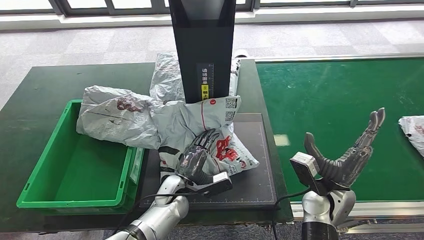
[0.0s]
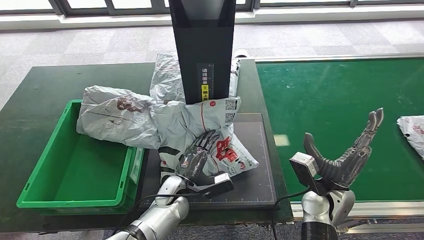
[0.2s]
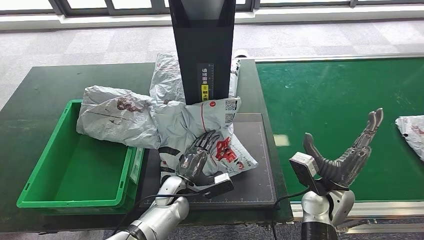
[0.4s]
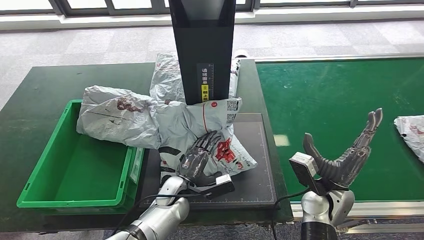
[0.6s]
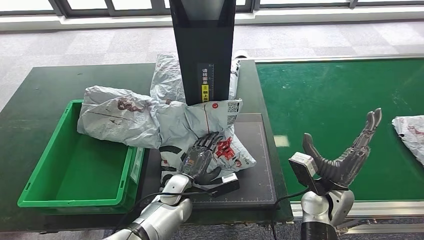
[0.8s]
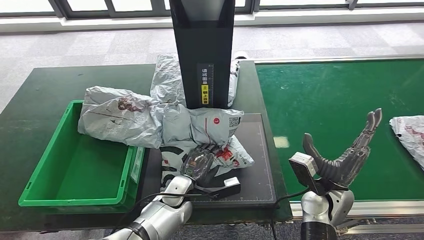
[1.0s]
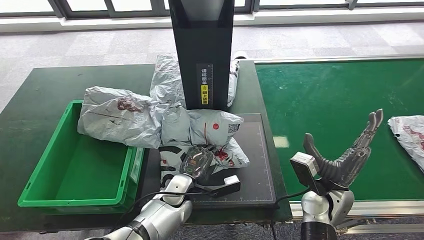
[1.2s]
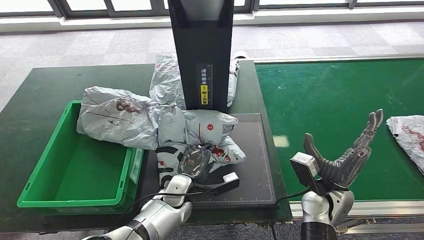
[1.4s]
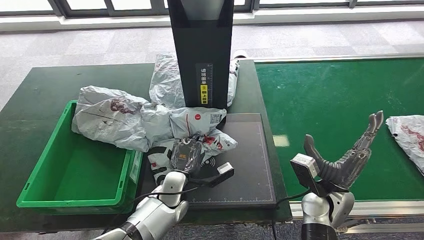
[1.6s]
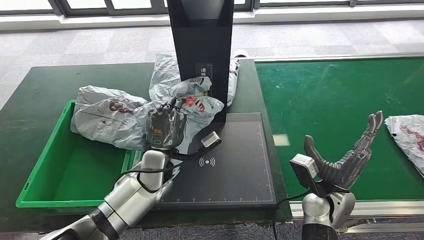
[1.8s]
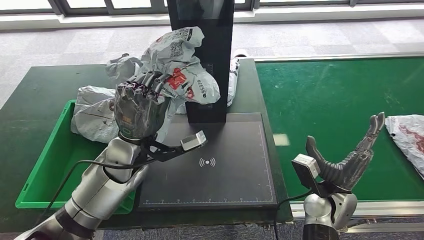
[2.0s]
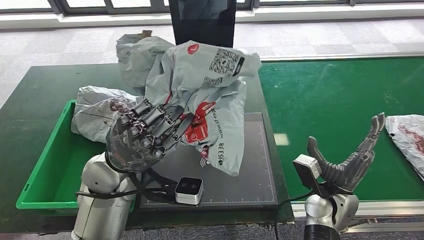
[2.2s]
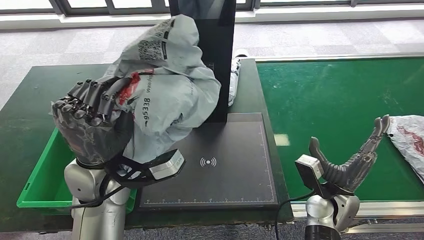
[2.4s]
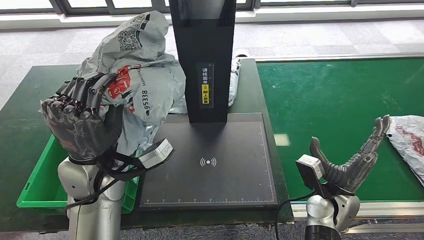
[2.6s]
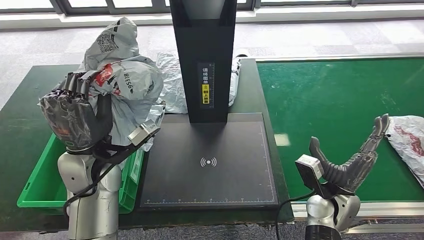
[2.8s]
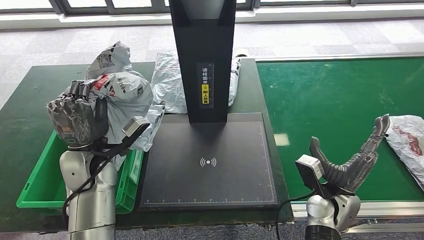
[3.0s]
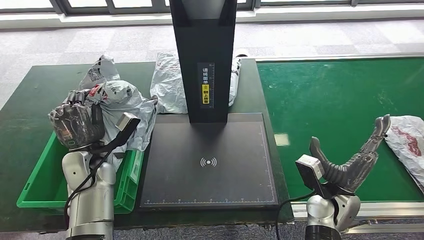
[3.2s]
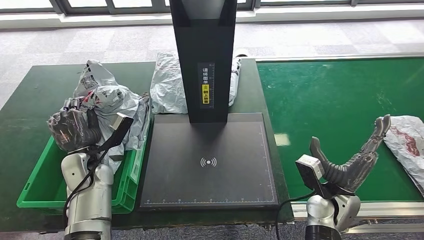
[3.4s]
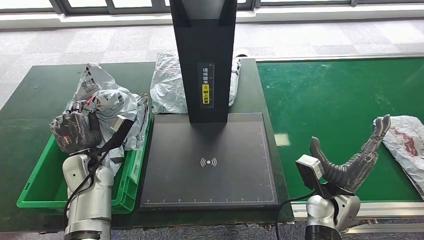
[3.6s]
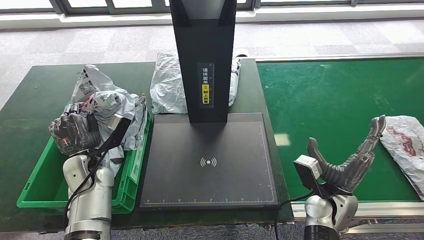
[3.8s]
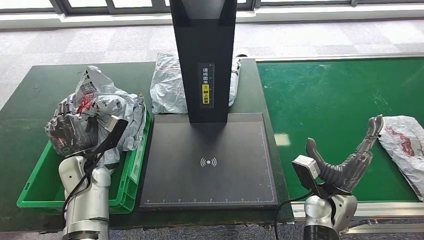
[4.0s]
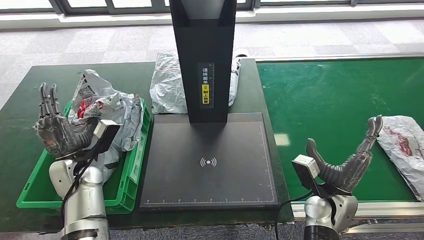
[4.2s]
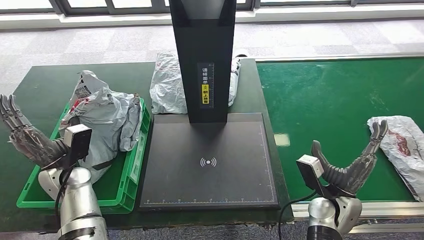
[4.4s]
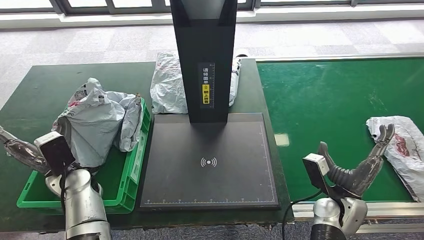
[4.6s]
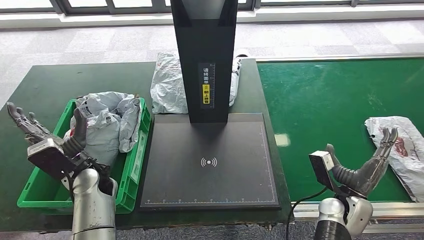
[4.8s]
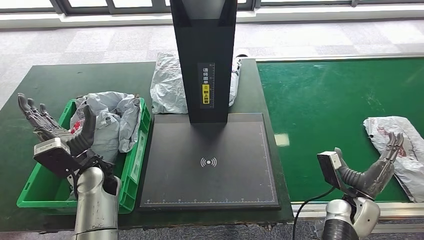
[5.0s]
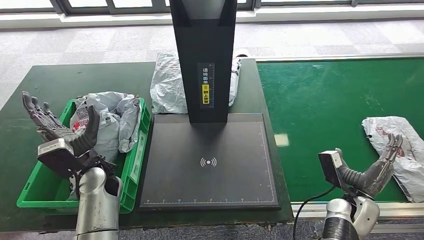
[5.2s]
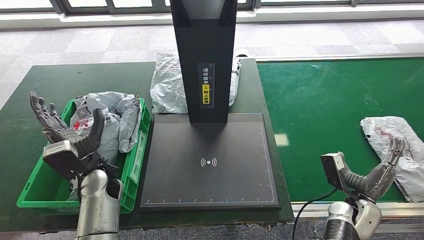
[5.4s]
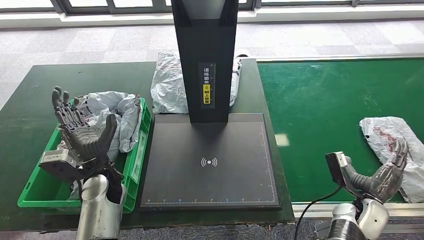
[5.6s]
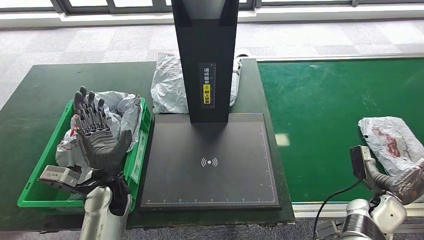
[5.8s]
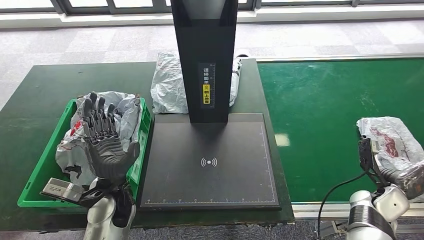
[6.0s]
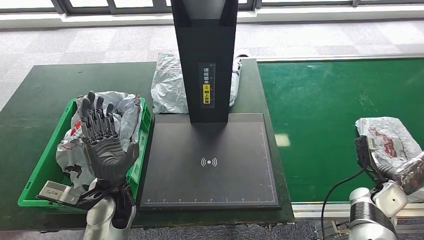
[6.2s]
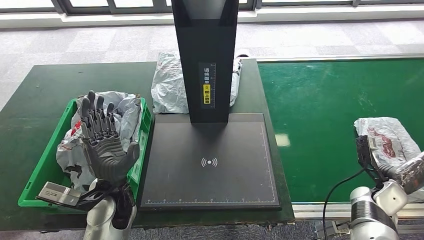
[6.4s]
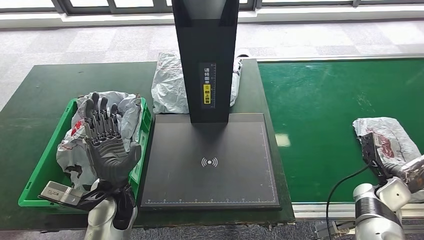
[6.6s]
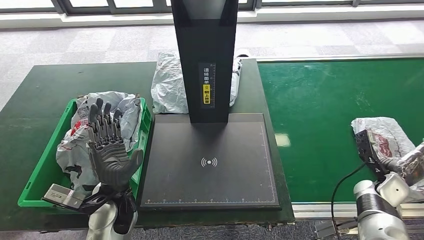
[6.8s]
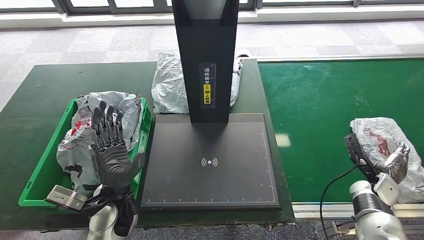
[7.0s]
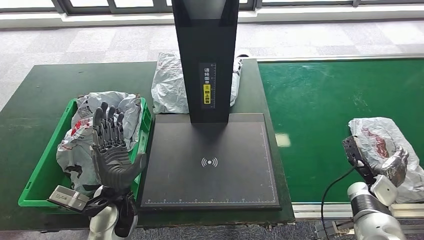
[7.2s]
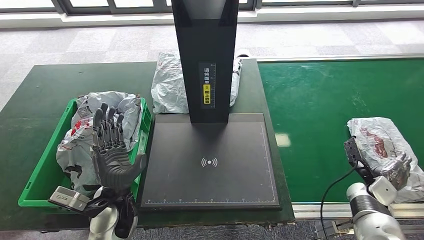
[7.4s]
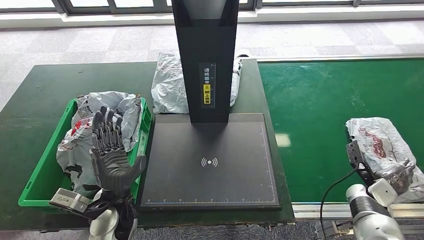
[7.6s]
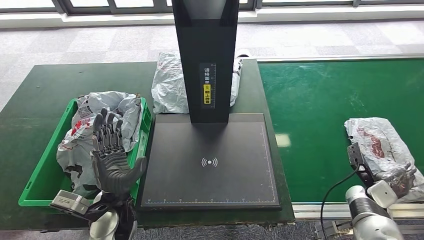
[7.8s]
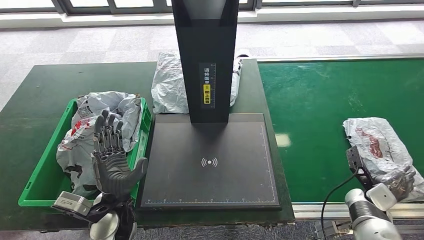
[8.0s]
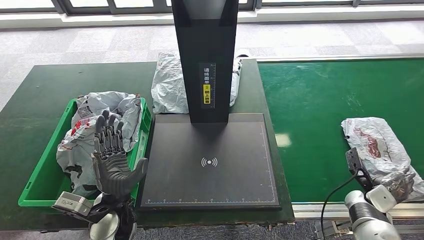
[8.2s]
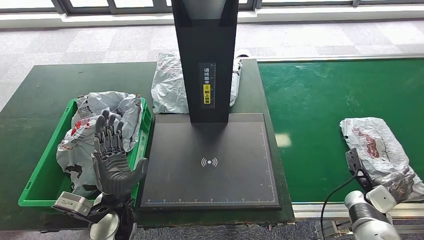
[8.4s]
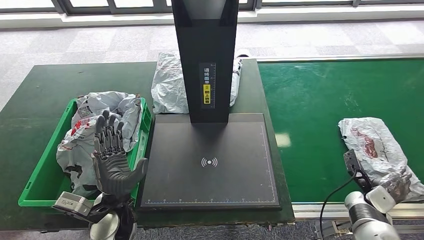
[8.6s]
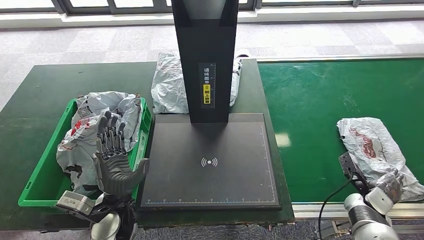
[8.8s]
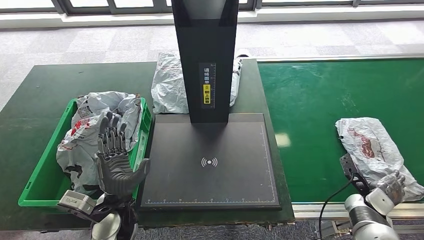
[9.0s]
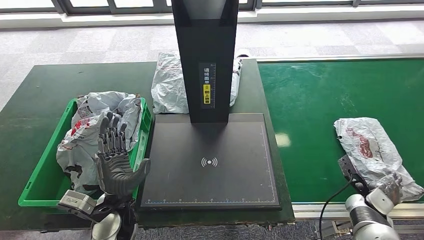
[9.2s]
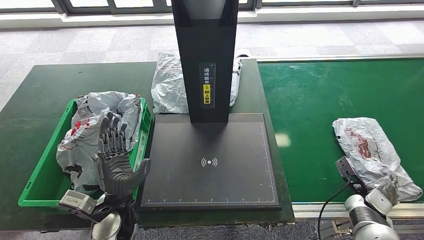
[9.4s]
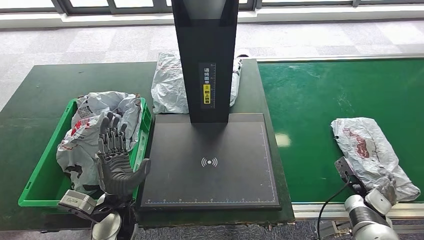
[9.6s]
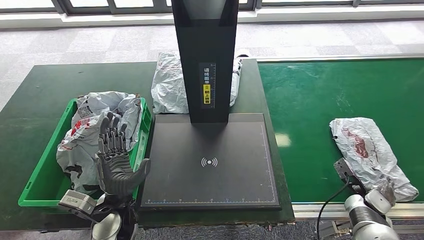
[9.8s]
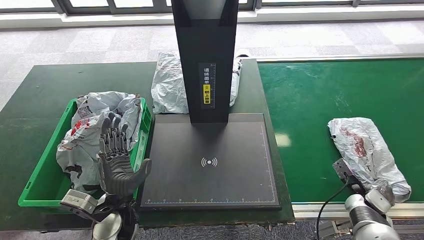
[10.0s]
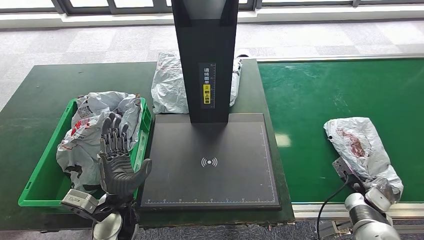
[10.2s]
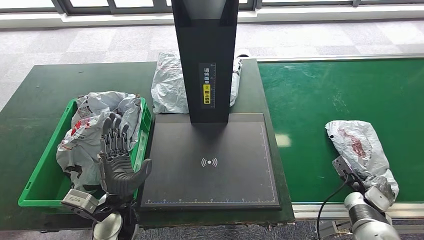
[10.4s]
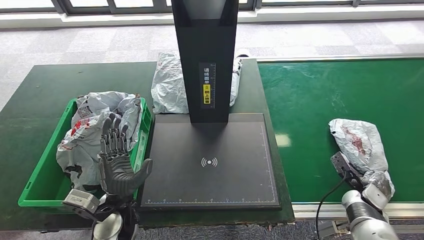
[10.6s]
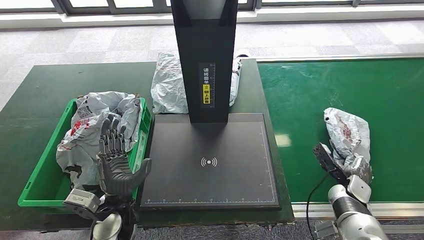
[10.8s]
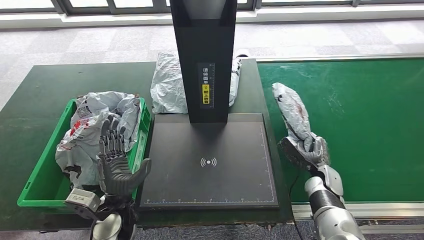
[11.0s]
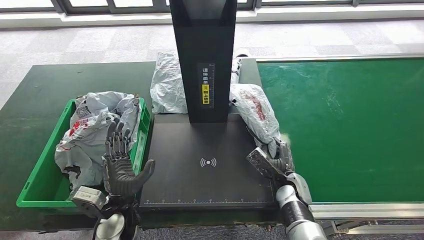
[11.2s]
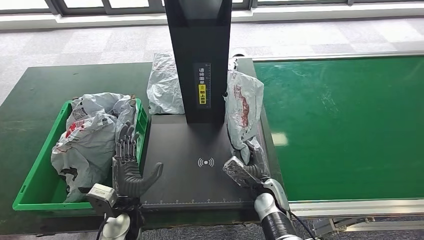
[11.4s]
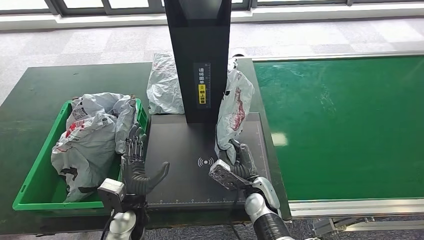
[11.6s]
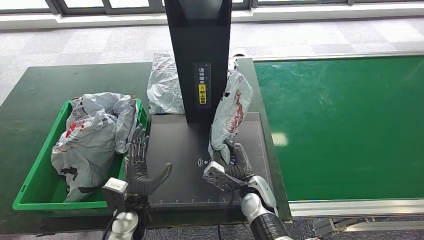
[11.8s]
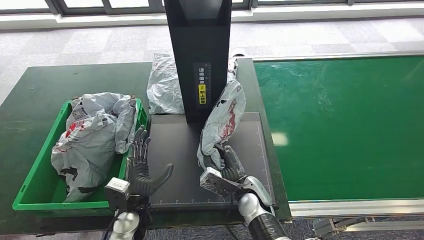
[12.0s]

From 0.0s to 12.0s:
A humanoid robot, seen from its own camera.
Step, from 0.0s to 2.2s: Pick up the parcel from the inbound machine.
Step, from 2.4s to 5.2s: Place the parcel into the delivery box.
Step, from 8.6s to 11.0s: Pick up the parcel from the conveyor belt.
From 3.0s to 4.4s: The left hand shifts approximately 10 cm to the left and downward.
From 7.6s to 9.0s: There are only small adjustments of the hands.
From 9.0s to 10.4s: The hands make only small movements.

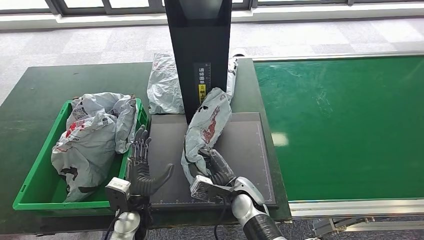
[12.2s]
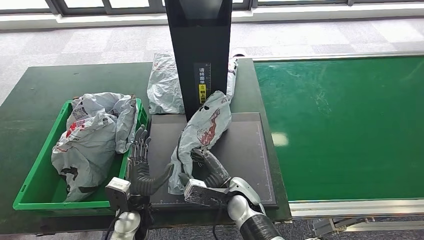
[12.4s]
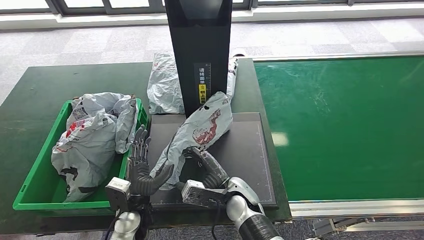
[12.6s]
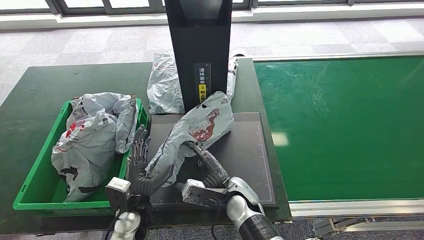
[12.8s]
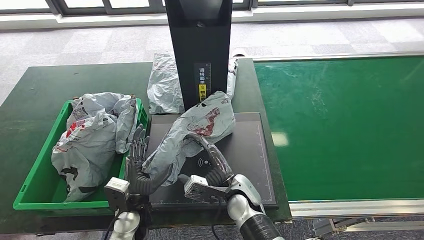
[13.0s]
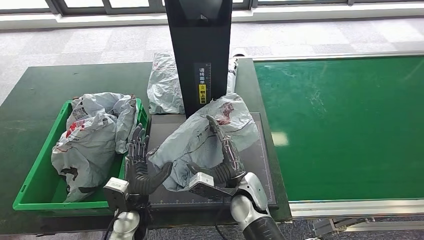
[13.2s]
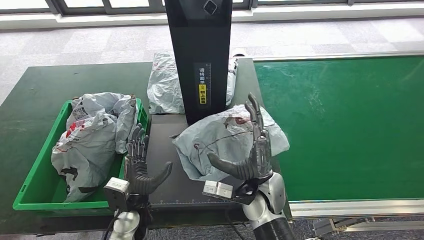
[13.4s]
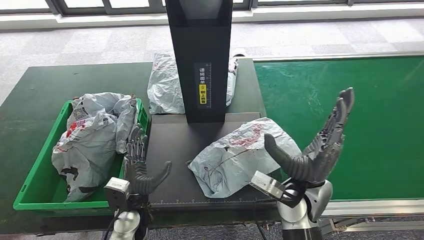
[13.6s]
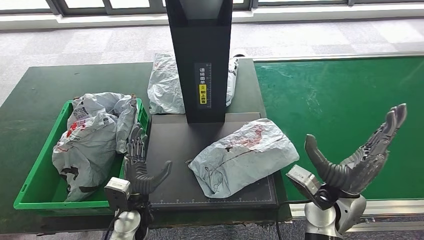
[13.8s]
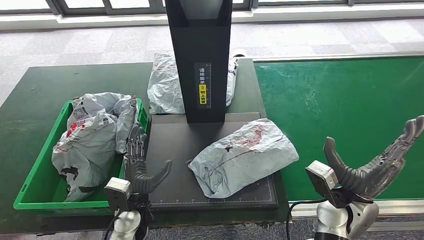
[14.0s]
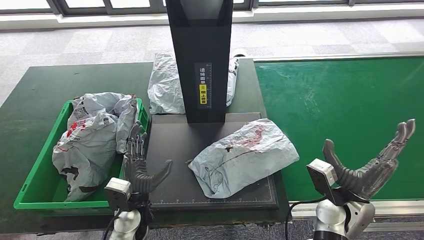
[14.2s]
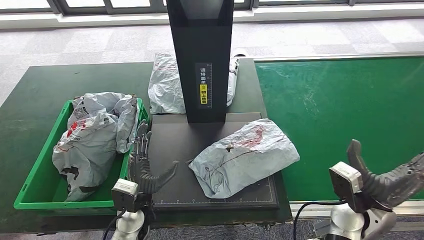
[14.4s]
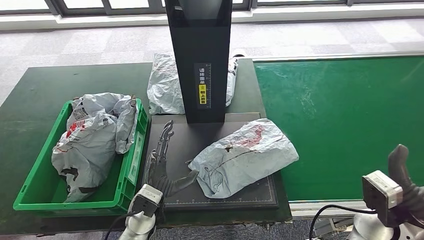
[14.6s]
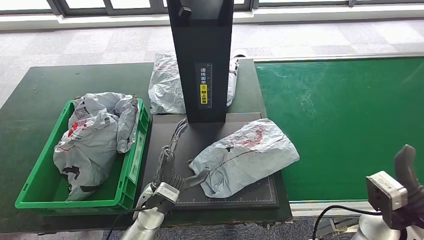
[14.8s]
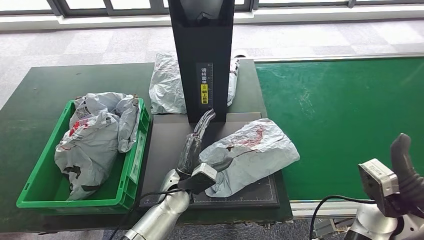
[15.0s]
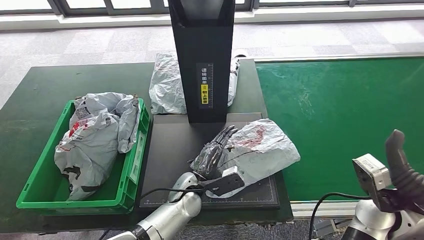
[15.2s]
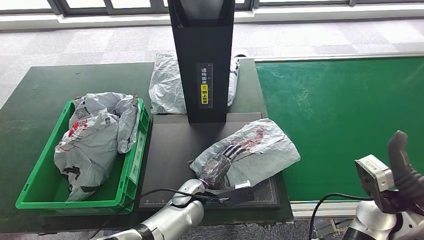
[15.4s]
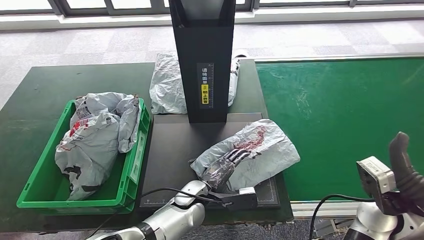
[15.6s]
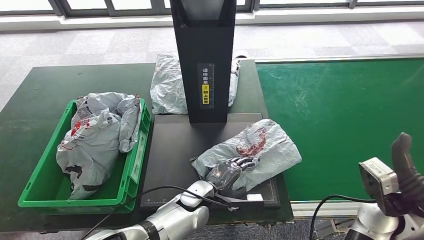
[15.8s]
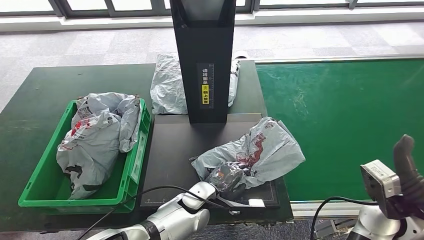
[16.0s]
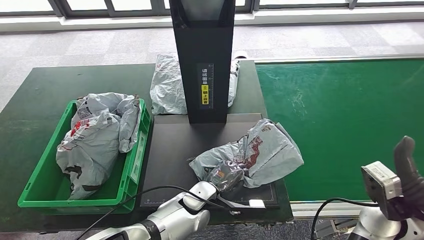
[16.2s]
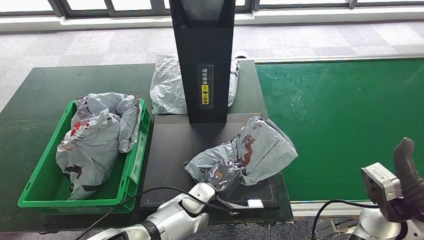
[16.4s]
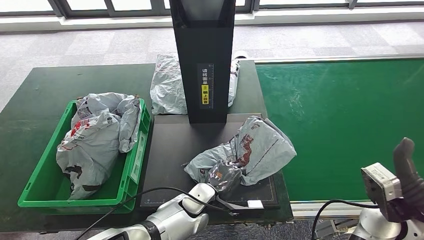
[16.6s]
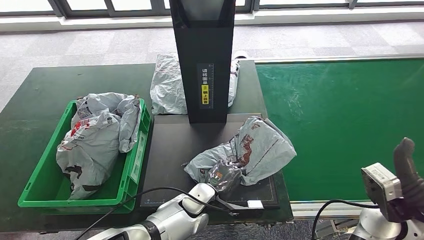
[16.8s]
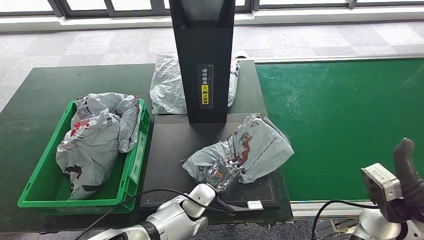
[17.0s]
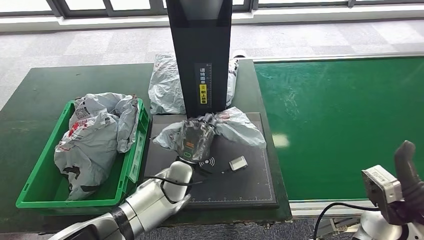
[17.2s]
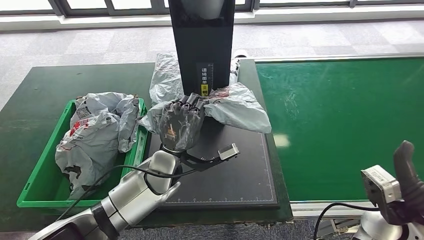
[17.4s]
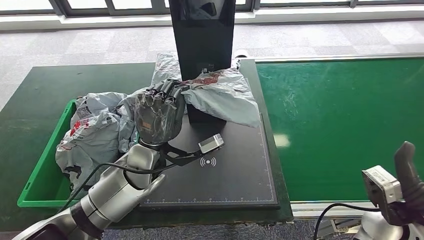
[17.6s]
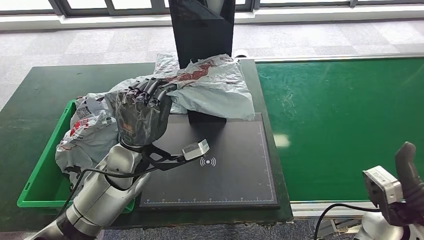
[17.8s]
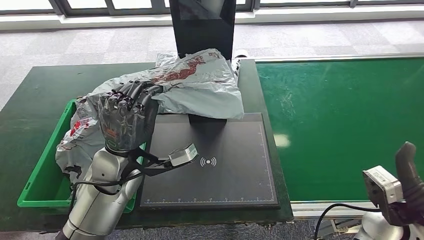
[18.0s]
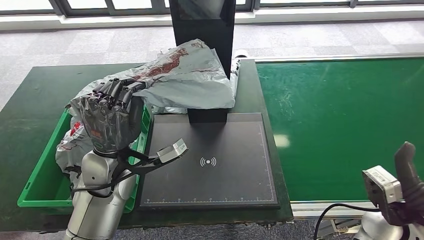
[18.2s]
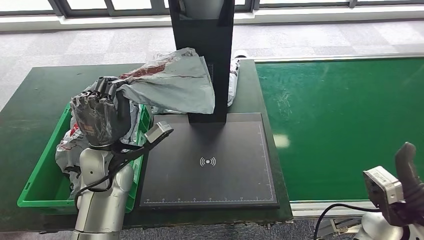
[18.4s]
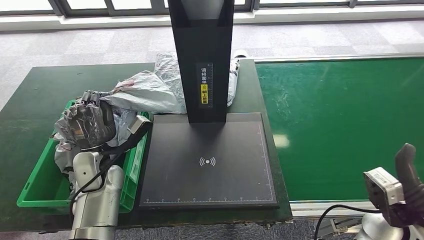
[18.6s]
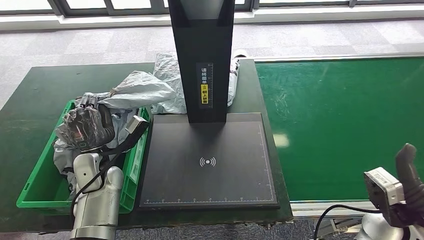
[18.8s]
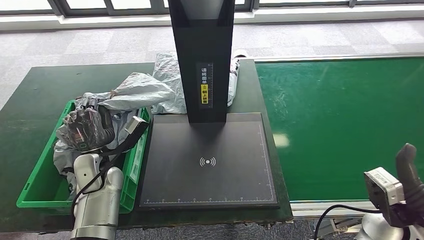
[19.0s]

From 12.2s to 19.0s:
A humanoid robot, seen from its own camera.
Step, from 12.2s to 13.6s: Place the parcel onto the inbound machine.
Step, from 13.8s to 17.6s: Pick up the parcel from the inbound machine.
From 12.2s to 13.6s: The right hand moves upward and to the right, some 15 cm.
From 15.0s to 16.2s: The left hand shifts by about 5 cm.
From 17.6s to 19.0s: The left hand travels to the left and downward by roughly 15 cm.
